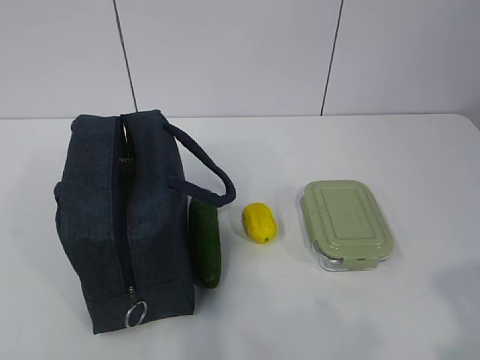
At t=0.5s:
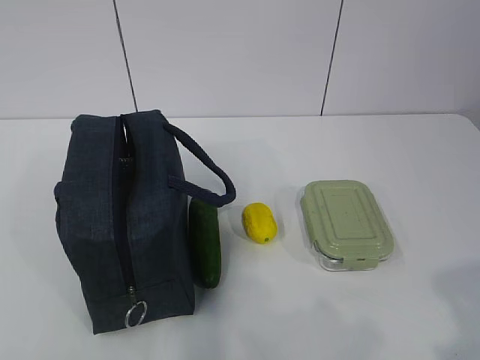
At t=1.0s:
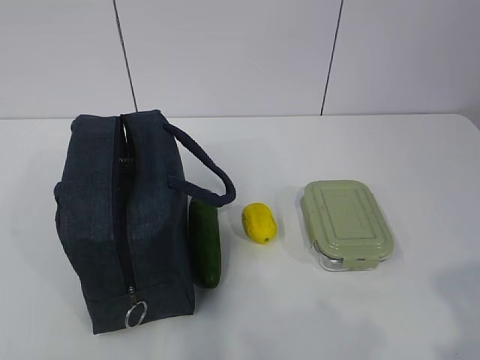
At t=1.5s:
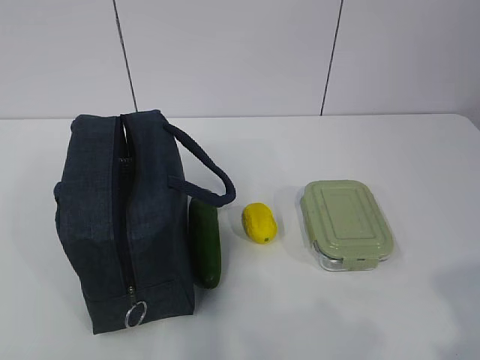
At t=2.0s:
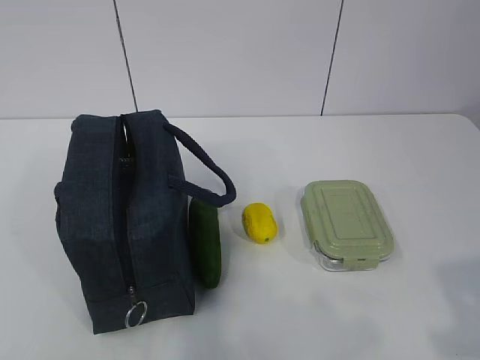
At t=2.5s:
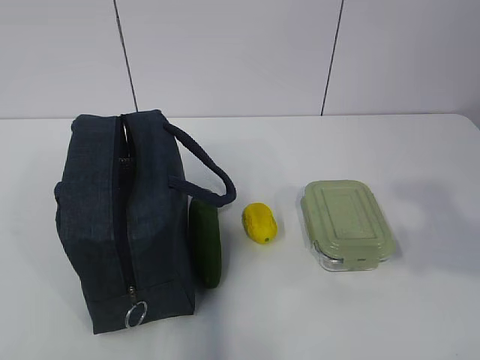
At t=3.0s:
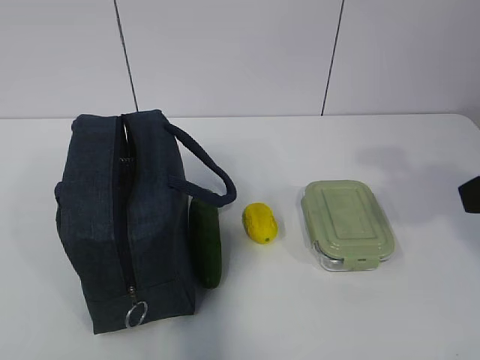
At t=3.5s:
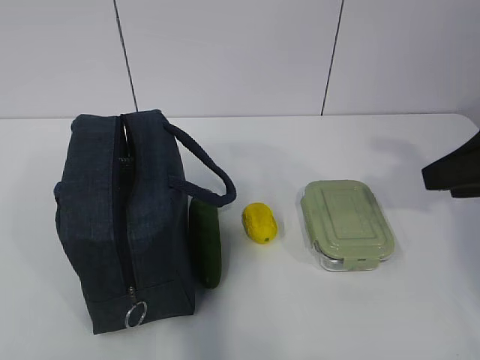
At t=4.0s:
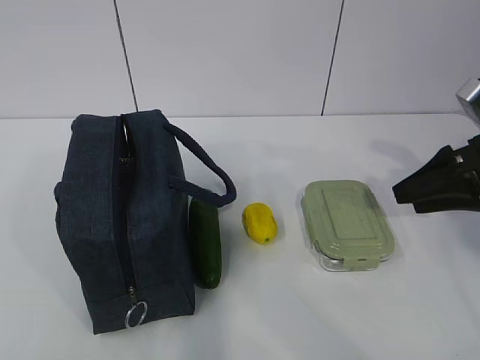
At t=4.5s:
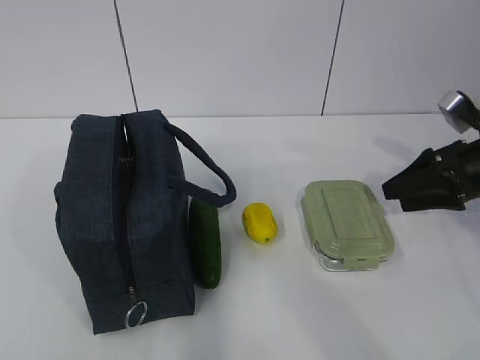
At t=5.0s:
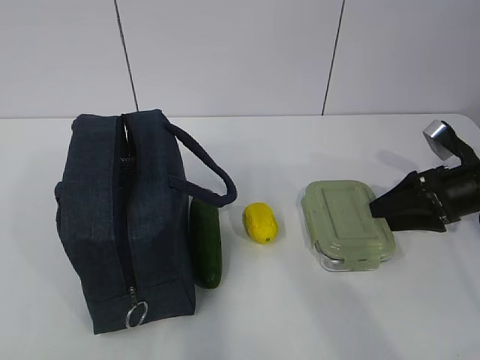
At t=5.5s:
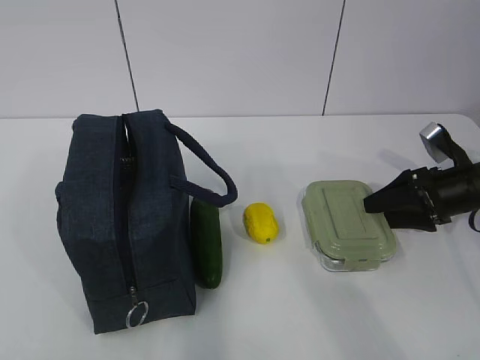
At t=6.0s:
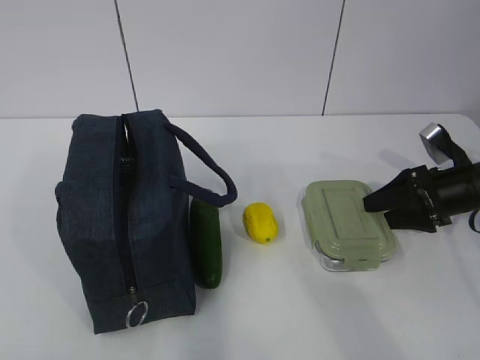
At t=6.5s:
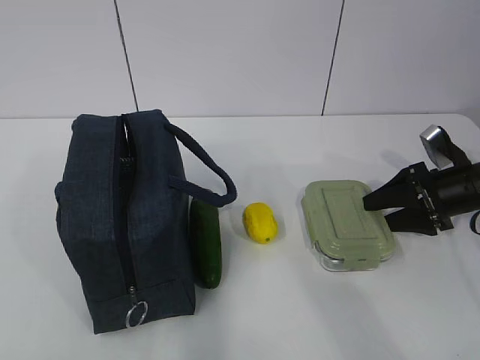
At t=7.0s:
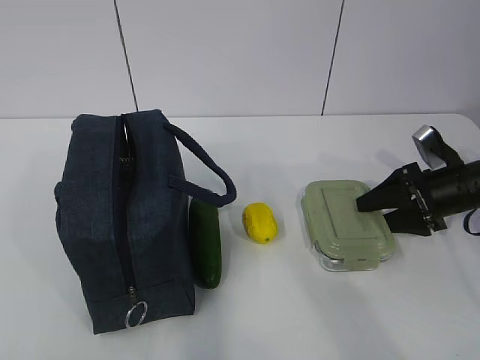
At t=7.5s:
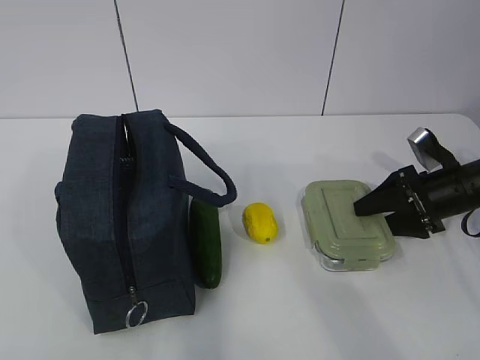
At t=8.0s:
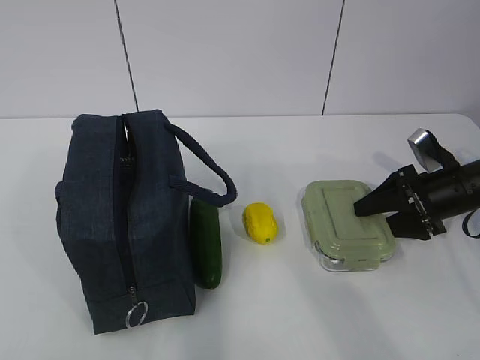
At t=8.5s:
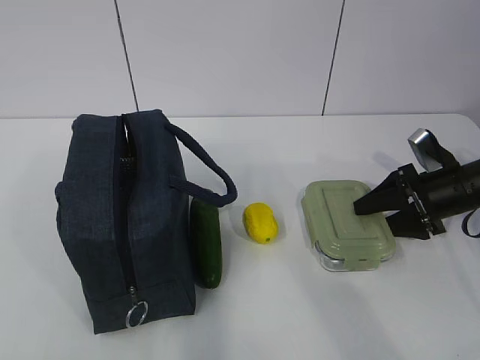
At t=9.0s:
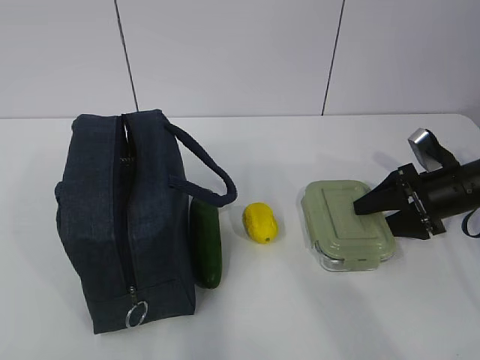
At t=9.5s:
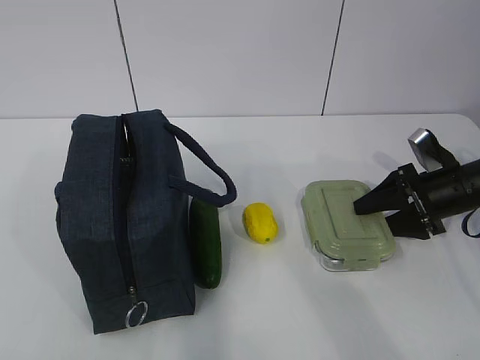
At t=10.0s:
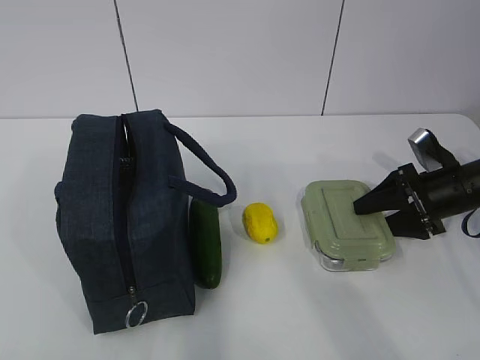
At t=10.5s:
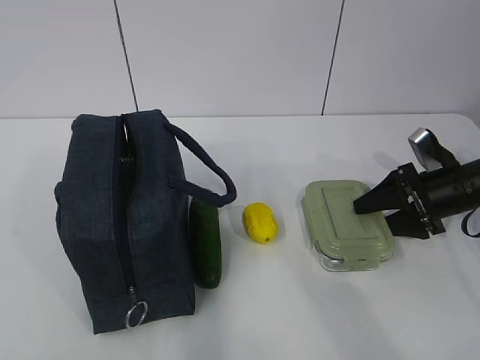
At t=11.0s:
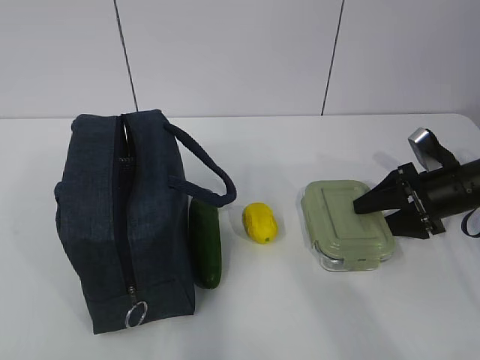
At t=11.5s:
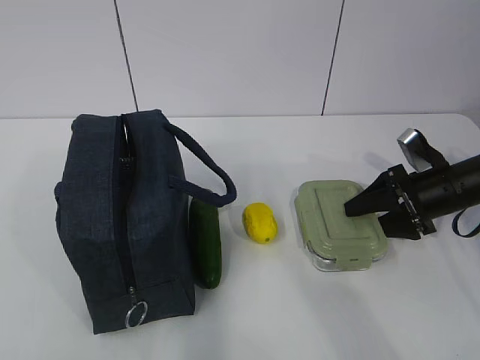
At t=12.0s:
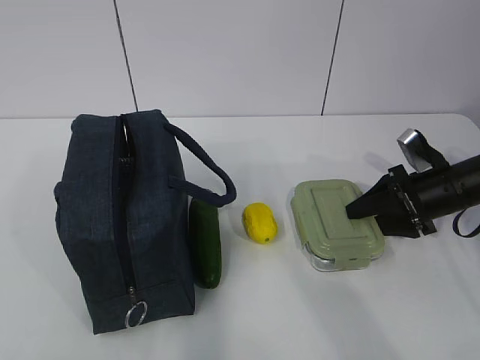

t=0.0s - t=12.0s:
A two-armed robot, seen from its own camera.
t=2.0s - t=4.0s: The right gripper is displaced forward by some 30 cm, and opens its fingers.
t=4.0s - t=6.0s: The right gripper shifts some 10 cm downward and forward.
t=6.0s - t=8.0s: The grippers make only small movements.
t=8.0s - t=12.0s: The two grippers keep their place.

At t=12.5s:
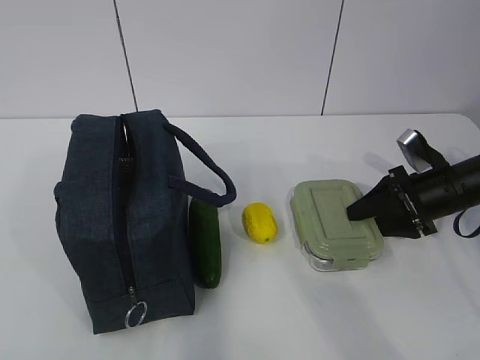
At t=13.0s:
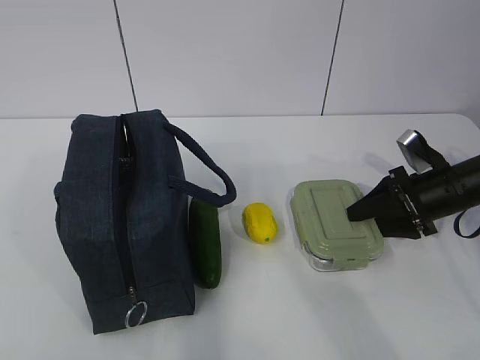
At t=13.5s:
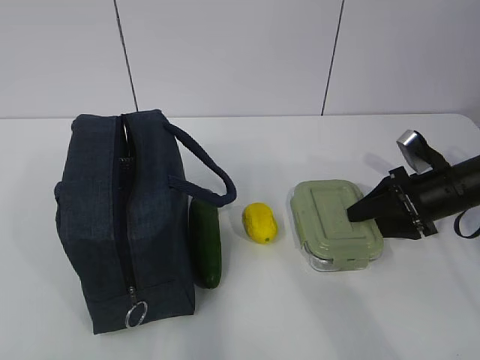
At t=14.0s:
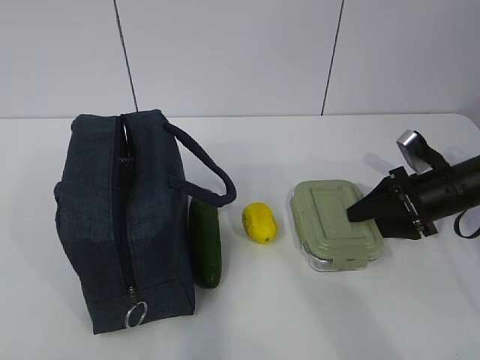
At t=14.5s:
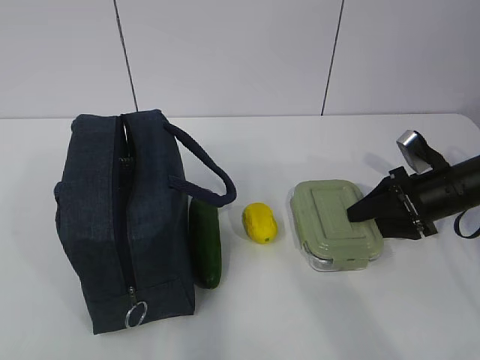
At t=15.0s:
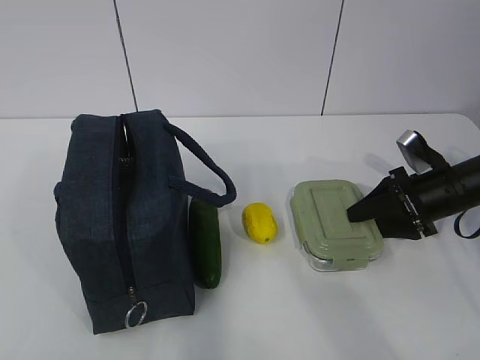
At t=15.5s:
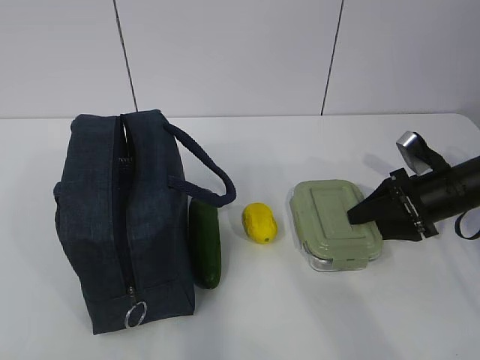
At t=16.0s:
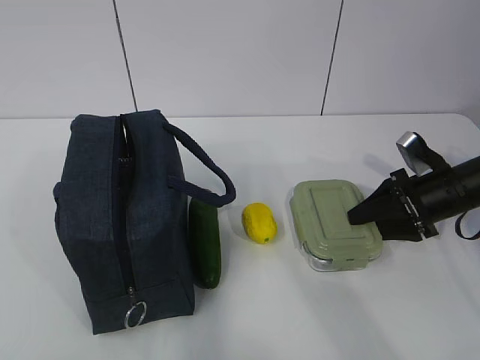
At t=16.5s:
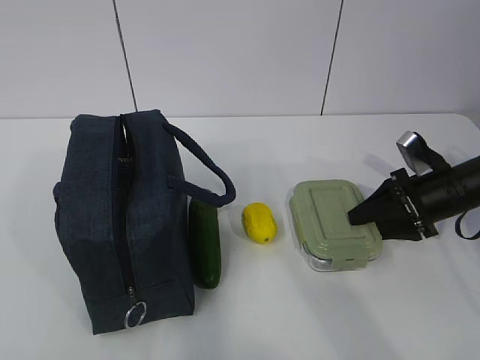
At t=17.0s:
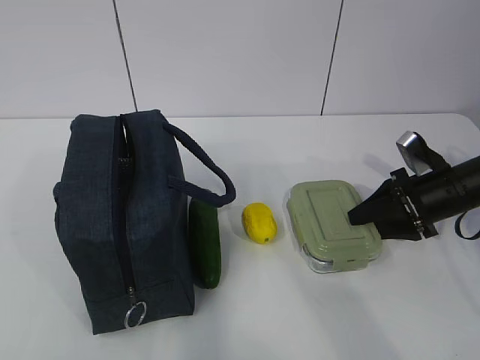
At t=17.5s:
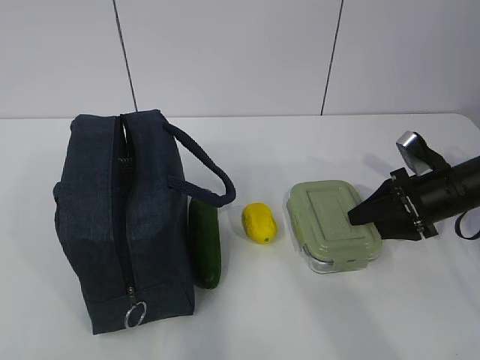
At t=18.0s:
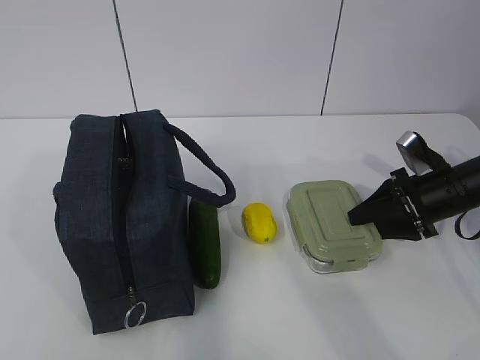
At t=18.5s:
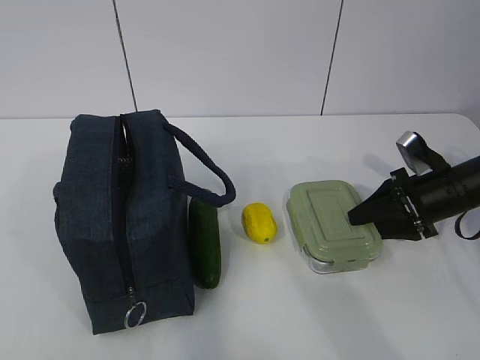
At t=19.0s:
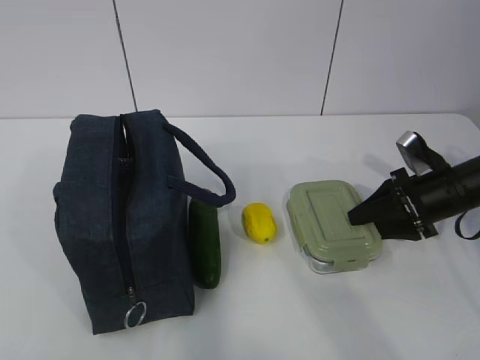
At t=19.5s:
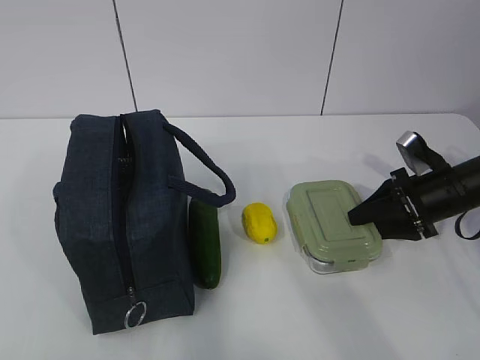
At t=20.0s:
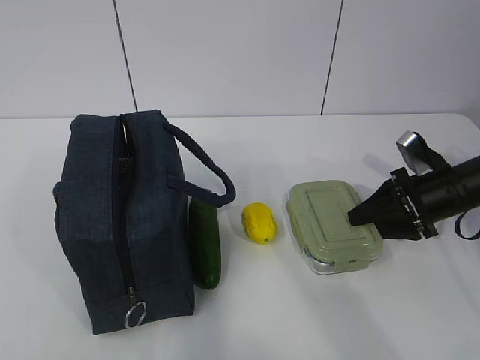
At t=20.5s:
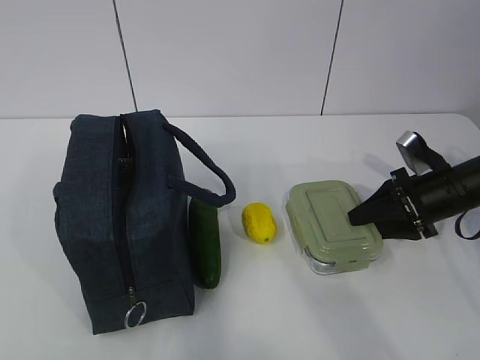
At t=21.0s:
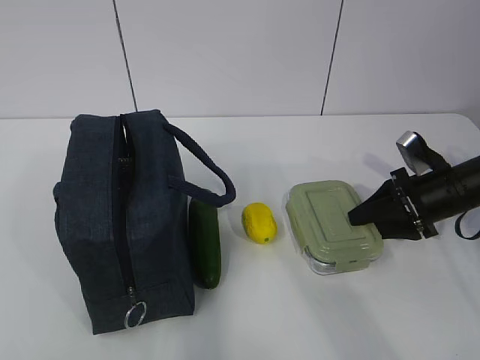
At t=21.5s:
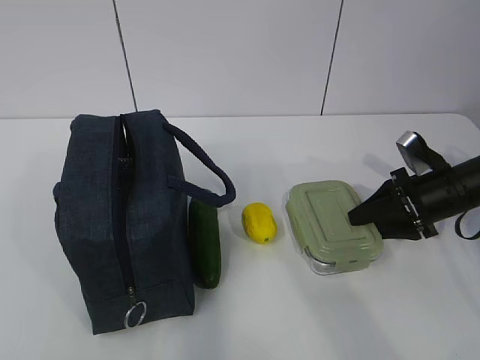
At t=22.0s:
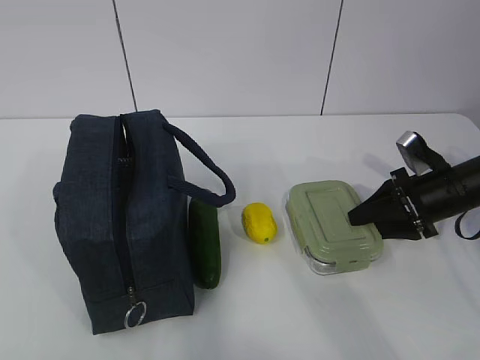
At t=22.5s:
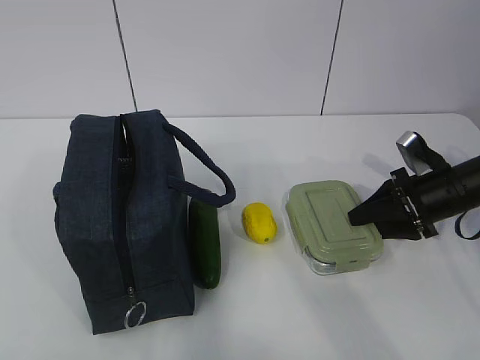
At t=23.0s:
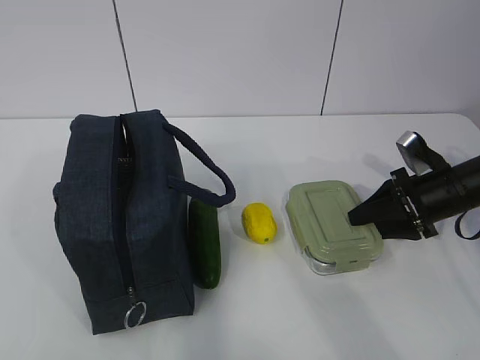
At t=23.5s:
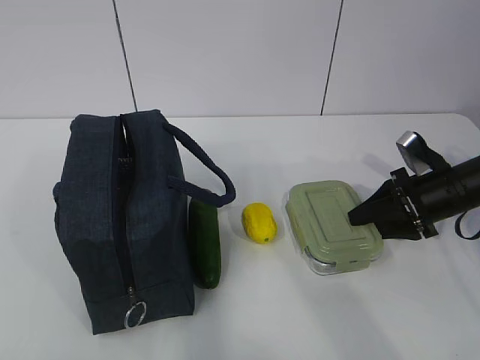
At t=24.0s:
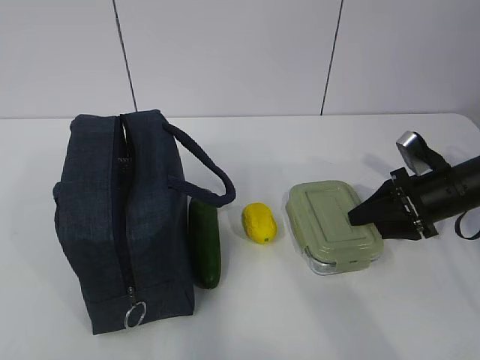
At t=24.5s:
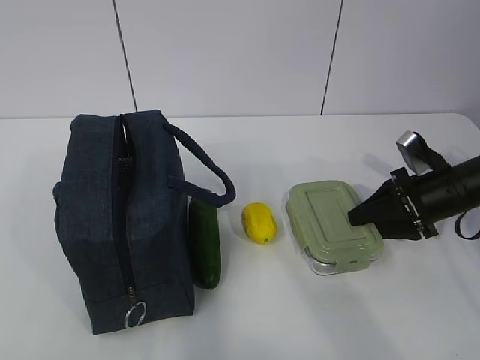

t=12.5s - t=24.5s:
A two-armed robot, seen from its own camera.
t=12.5s - t=24.5s: Both grippers stay put.

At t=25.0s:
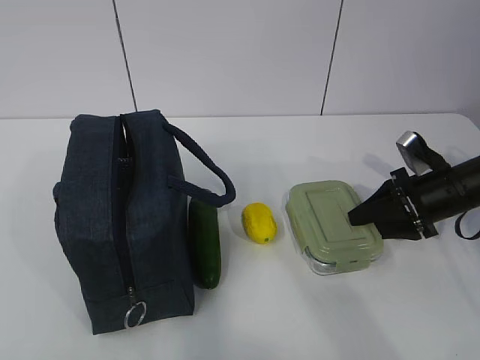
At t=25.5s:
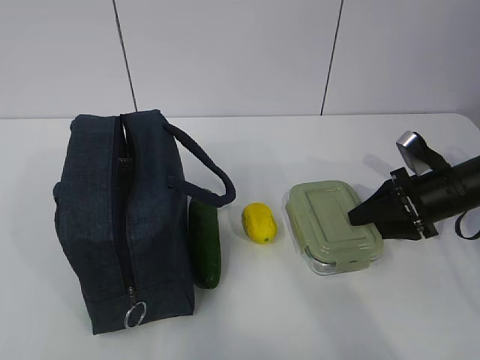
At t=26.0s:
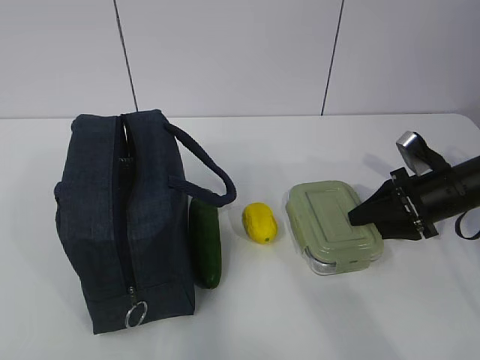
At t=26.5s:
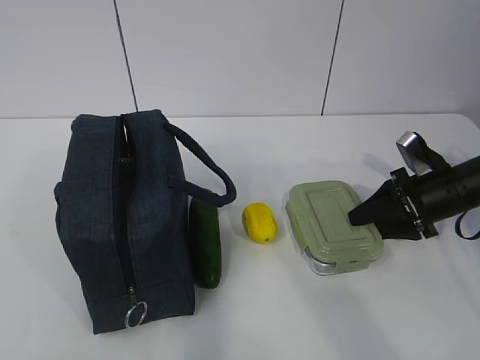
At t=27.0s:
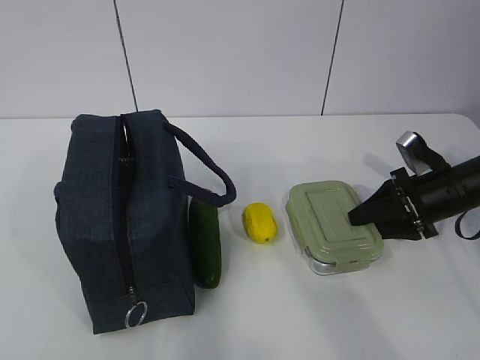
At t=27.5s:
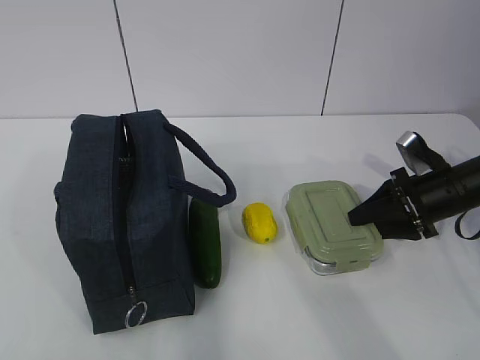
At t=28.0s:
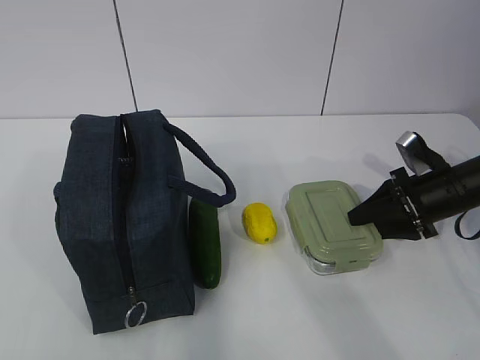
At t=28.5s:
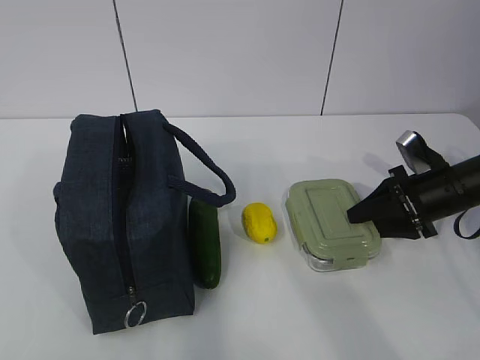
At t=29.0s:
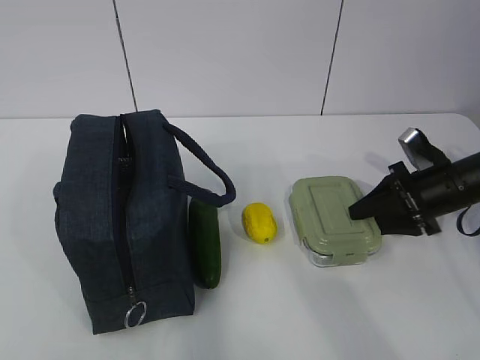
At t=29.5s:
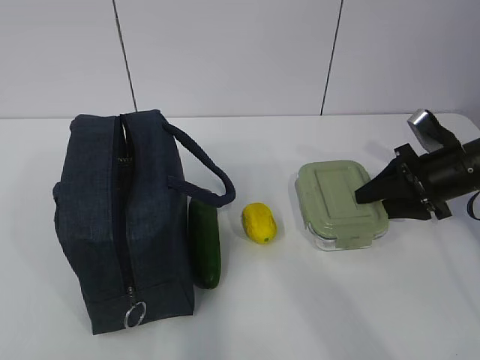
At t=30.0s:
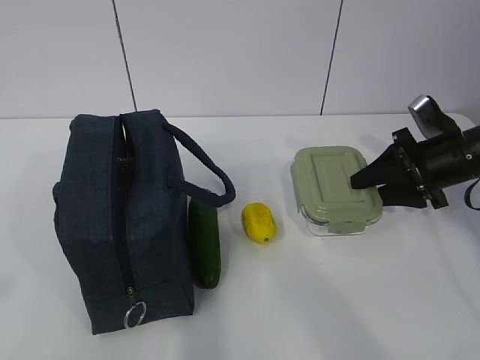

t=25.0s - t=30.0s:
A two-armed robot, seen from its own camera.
t=25.0s - t=27.5s: Neither gripper changes place.
t=27.5s - t=30.0s: The right gripper heads upward, covering some 5 cm.
